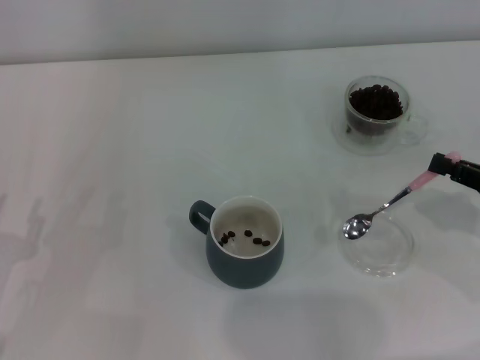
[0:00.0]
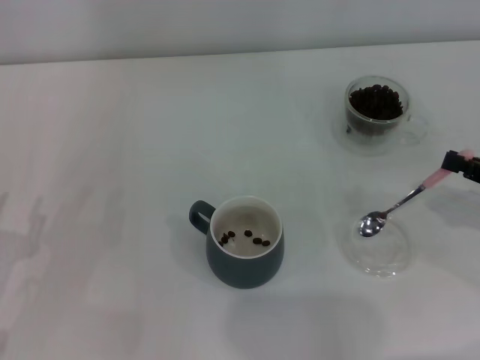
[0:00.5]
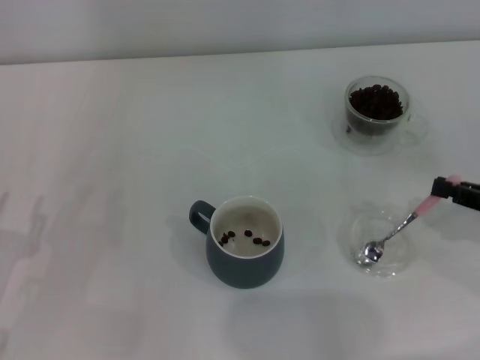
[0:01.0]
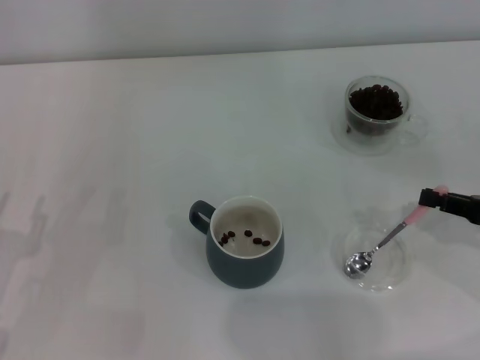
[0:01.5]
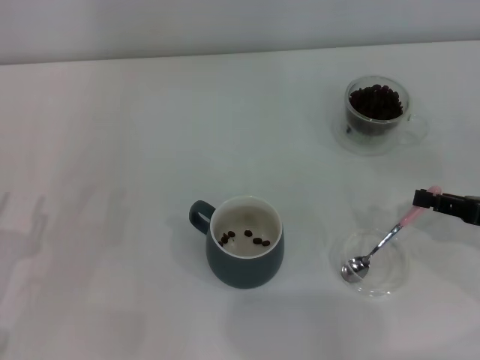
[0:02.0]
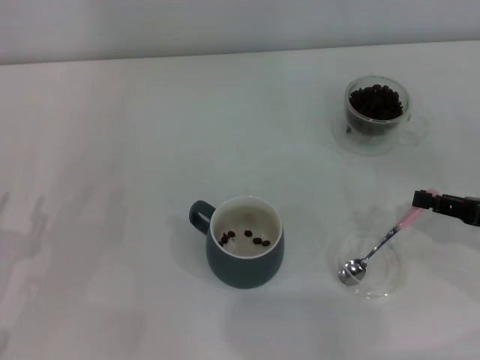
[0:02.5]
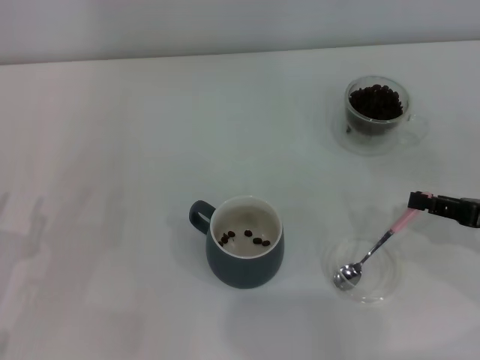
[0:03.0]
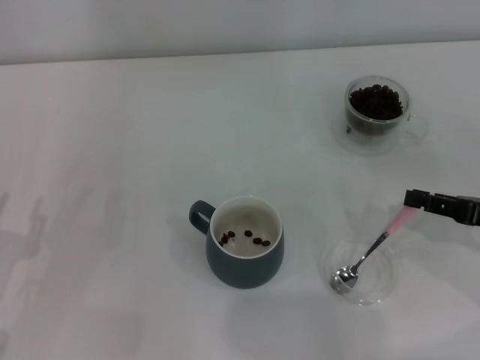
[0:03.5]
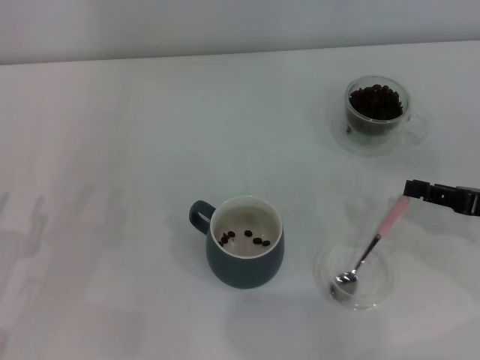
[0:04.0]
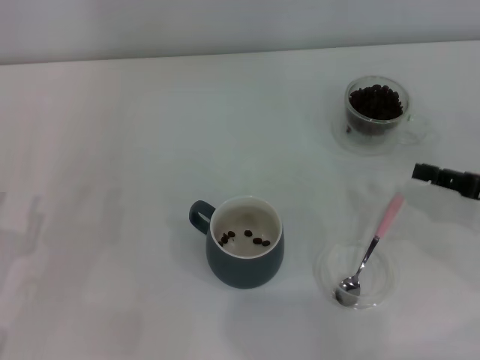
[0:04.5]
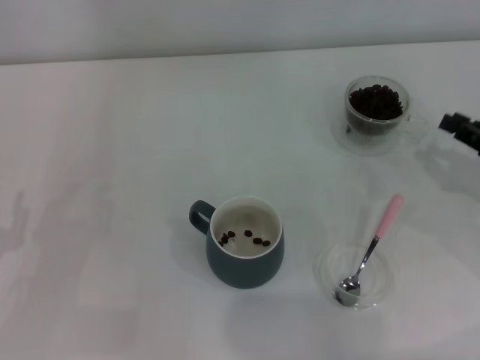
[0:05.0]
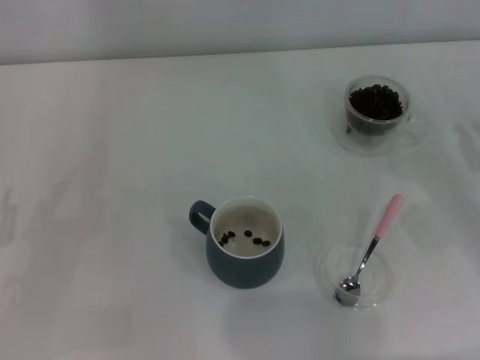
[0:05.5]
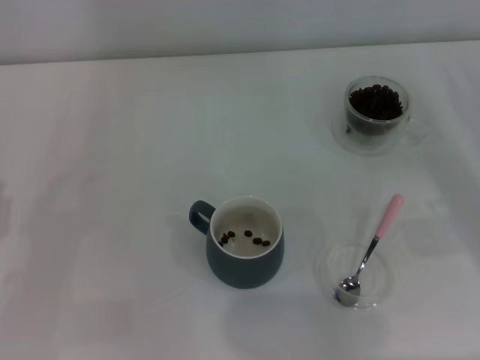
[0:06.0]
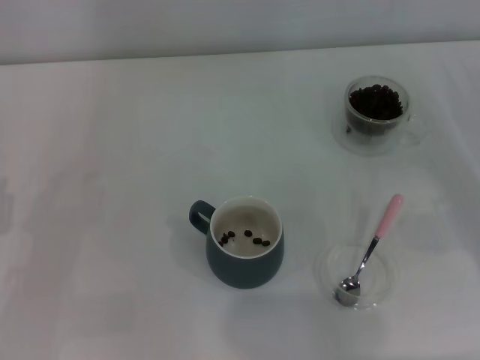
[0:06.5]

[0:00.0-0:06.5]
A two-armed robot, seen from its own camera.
Task of the whole recording: Use a pink spoon to take out the coffee beans from the glass and pour them into the gray cup.
Step, 0:00.0 to 0:04.5: Place the spoon back in its original place with the right gripper.
0:00.0 to 0:04.5: The grippers move only a little.
